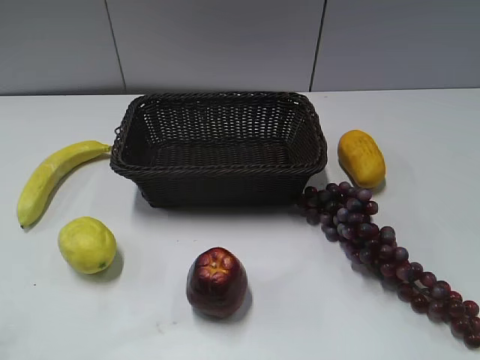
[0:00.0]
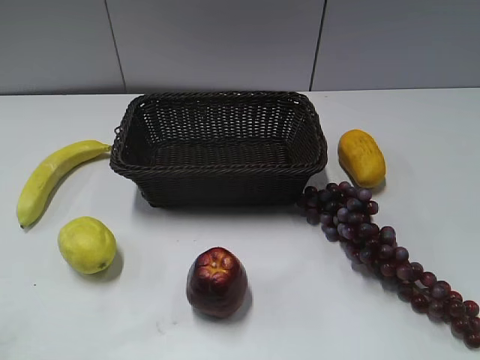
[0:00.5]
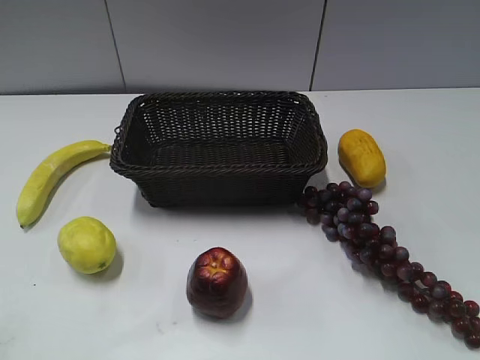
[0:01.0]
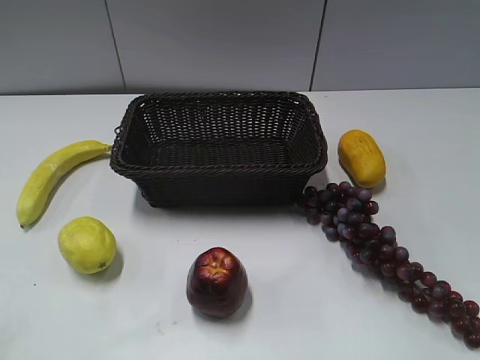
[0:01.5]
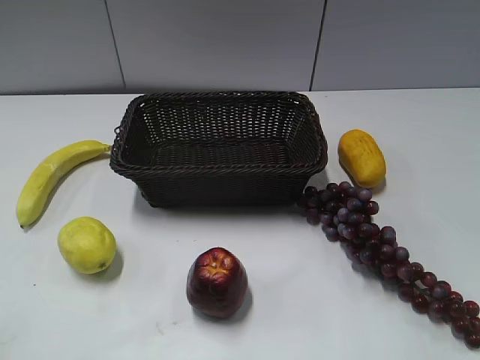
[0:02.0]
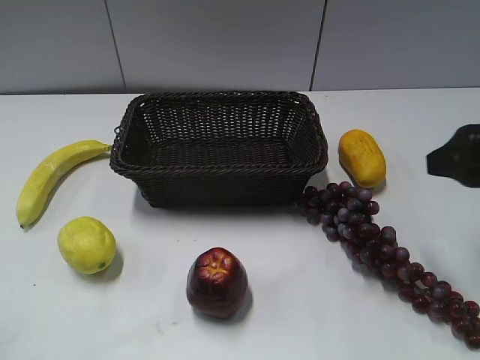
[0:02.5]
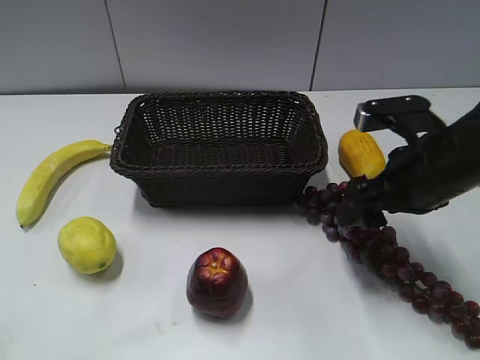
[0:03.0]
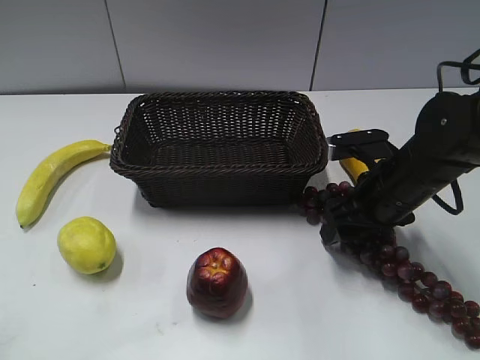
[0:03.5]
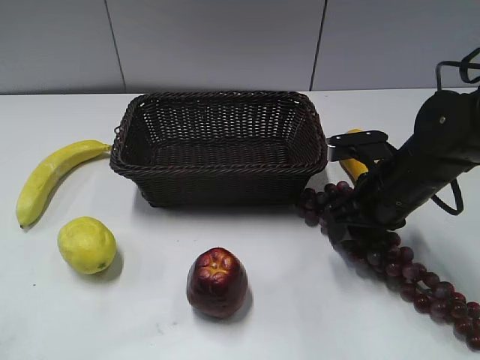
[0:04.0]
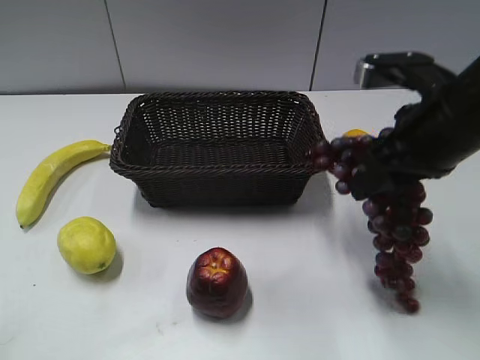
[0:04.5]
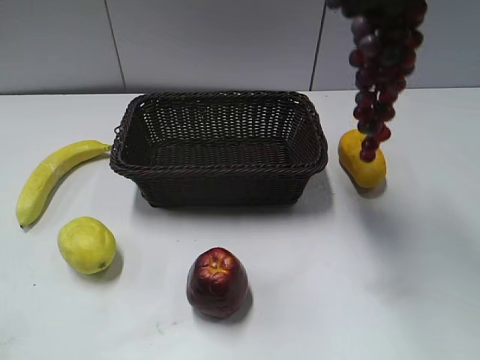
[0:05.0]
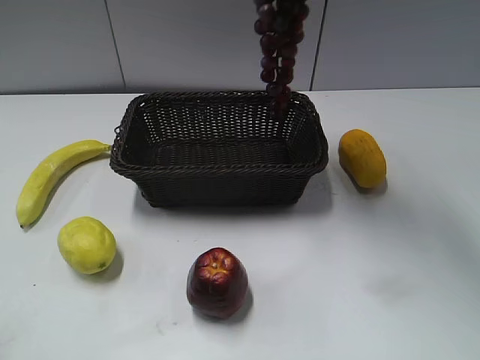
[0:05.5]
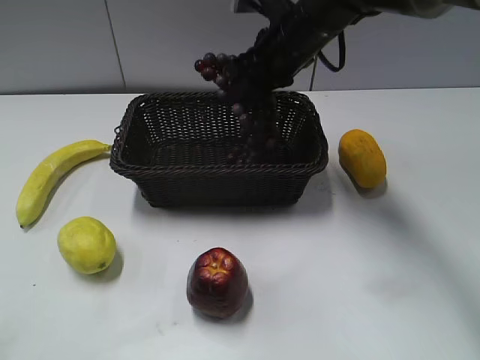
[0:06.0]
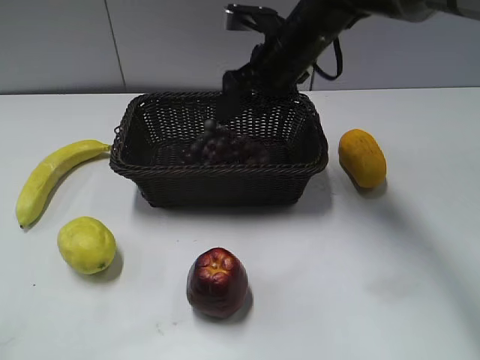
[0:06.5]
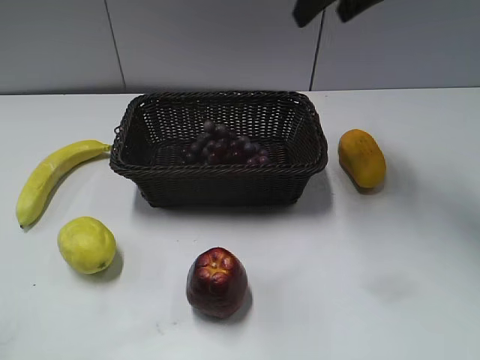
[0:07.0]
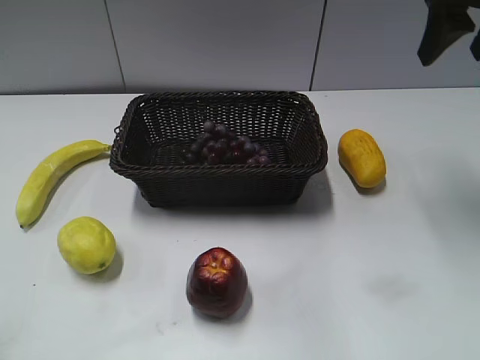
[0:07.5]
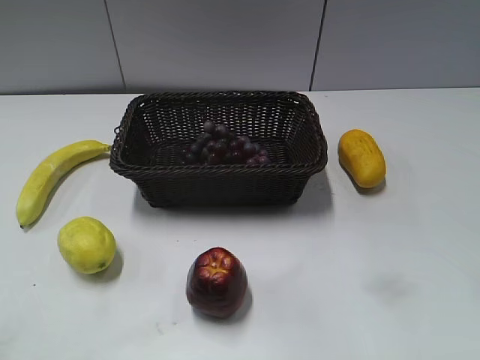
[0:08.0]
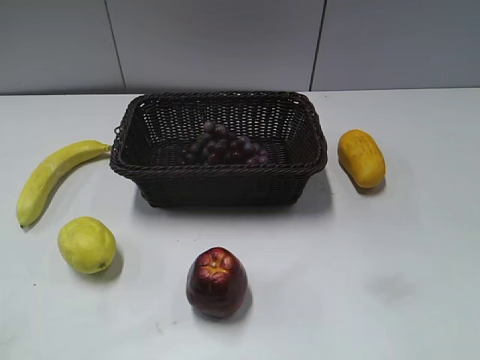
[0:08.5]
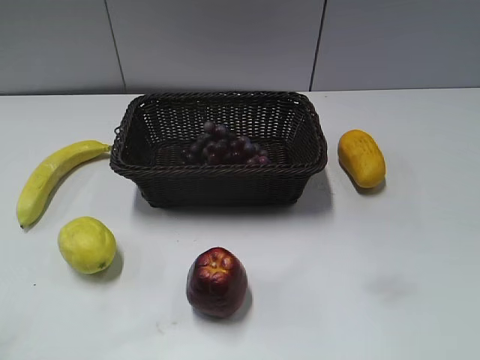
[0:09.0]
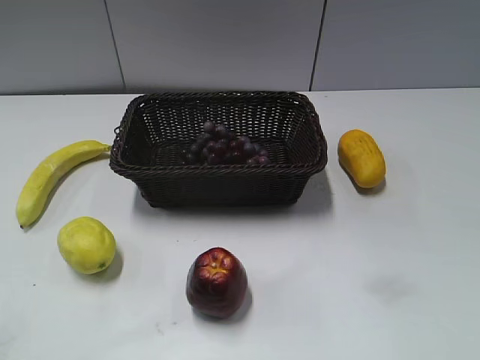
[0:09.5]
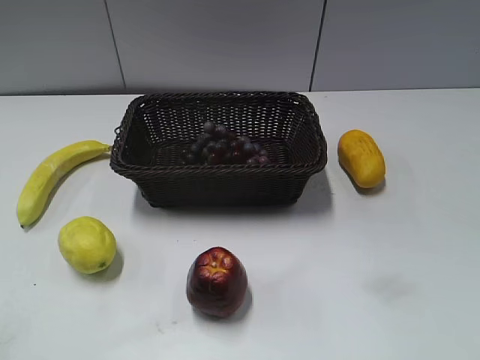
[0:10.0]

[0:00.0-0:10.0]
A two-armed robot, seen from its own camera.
Step, 0:02.5 to 0:03.5: Grasp the grape with right gripper.
Step, 0:04.0 to 0:06.0: Place the grape in the basket with right gripper.
0:02.0 to 0:04.0: The right gripper is displaced downward, forward and to the left by about 30 cm, and closes up.
0:04.0 to 0:06.0: The right gripper moves forward, to the left and upward, about 20 cm.
0:06.0 to 0:08.0: The right gripper is displaced backward, to the right and upward by approximately 35 cm, and opens up.

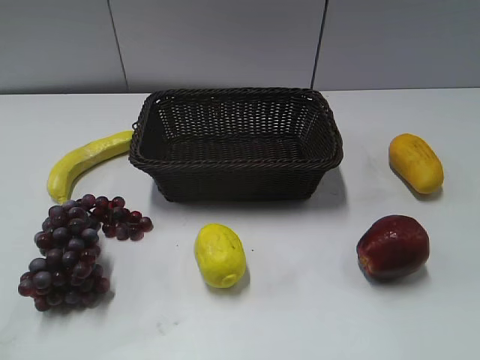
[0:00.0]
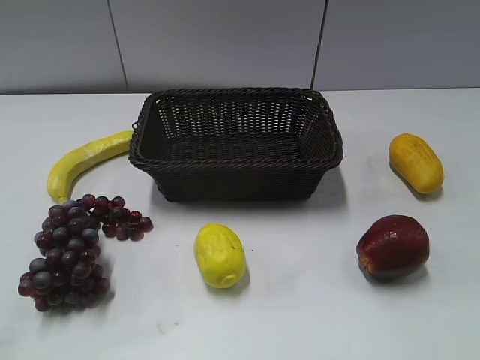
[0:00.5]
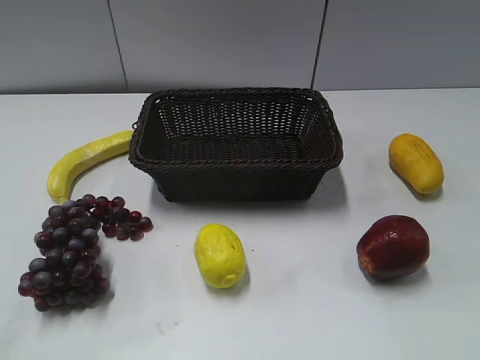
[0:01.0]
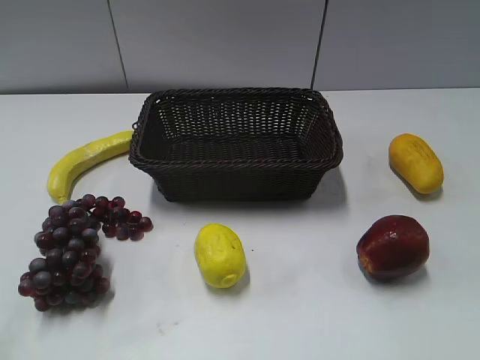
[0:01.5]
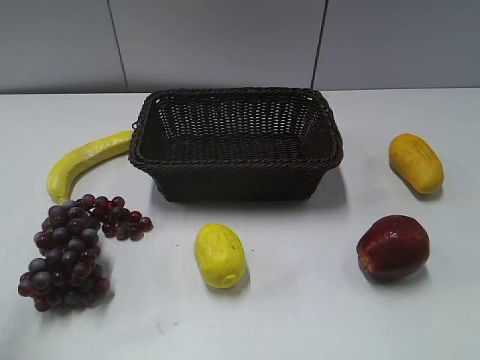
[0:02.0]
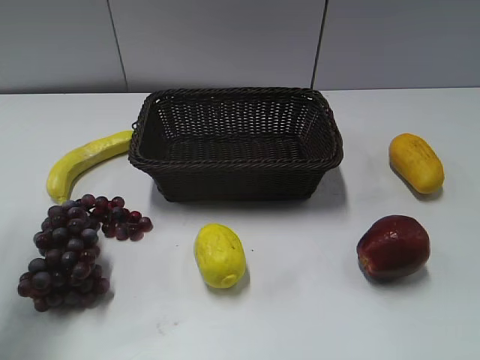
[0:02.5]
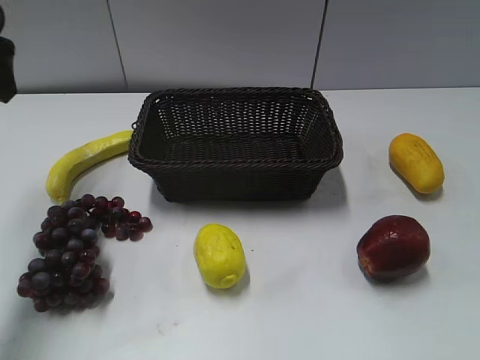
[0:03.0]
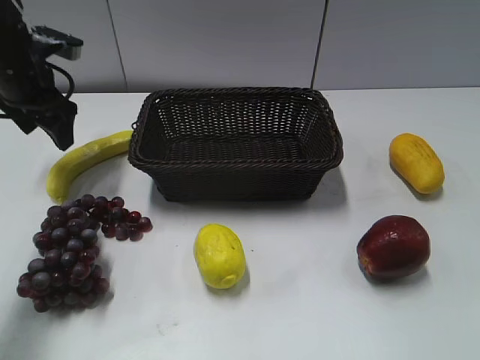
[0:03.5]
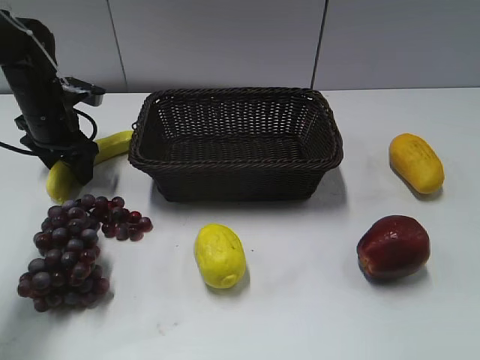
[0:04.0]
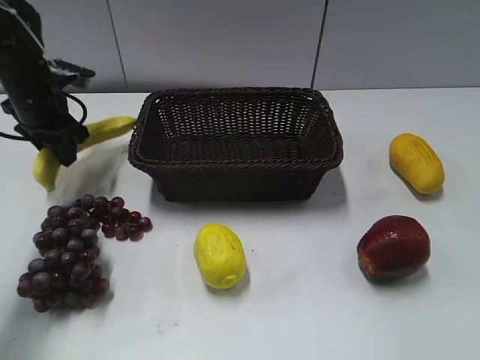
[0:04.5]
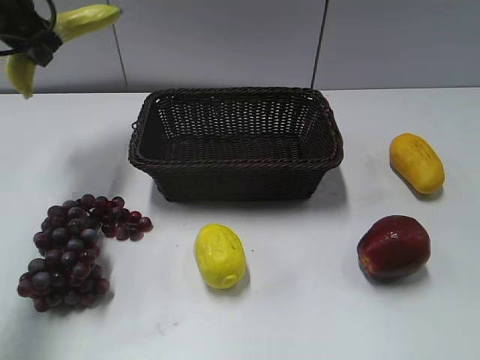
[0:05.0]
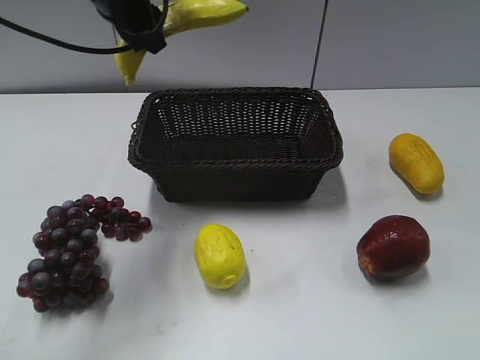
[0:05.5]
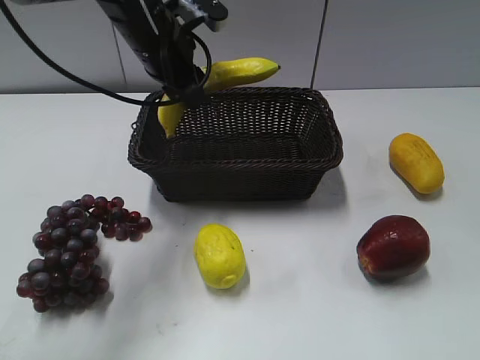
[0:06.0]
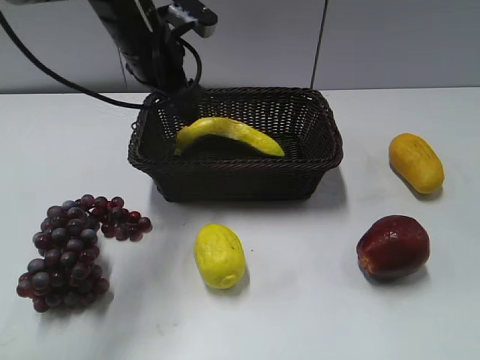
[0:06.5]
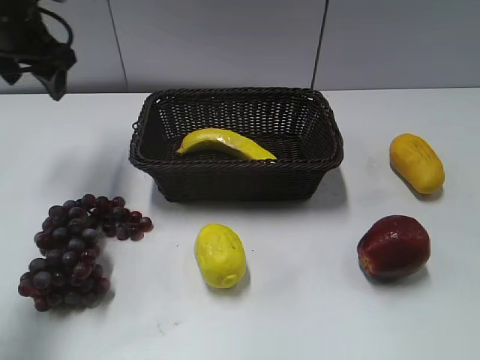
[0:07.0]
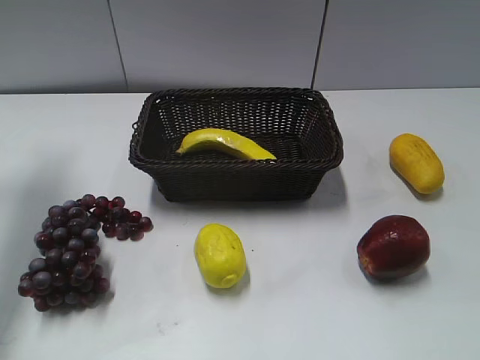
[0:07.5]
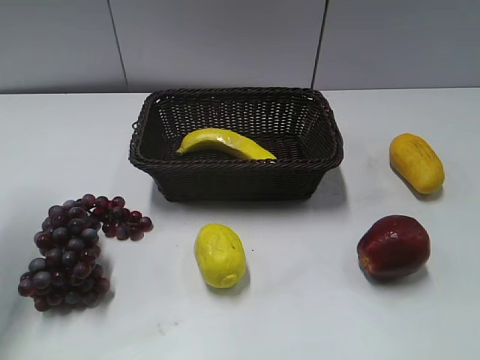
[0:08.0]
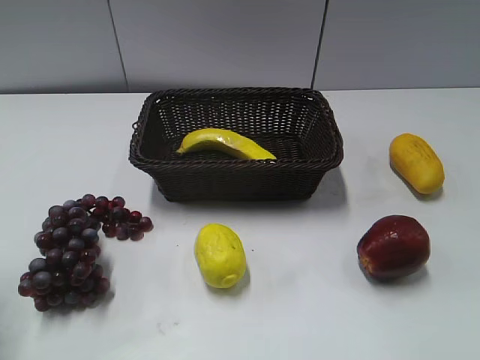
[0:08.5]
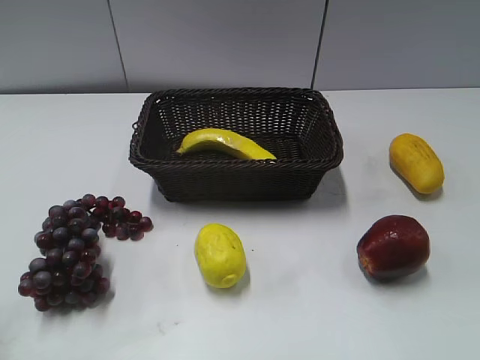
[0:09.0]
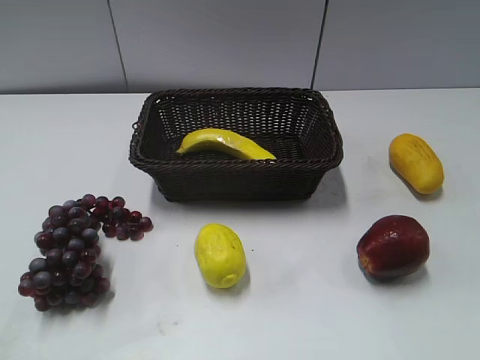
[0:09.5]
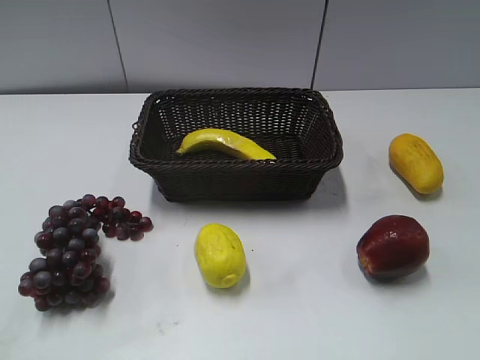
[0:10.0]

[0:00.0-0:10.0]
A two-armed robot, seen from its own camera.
Step, 0:03.0 to 0:04.0: Grasp the banana with left gripper.
Step, 0:05.0 to 0:06.5: Place the banana in the basket with left gripper.
0:02.0 to 0:04.0: The left gripper shifts some 40 cm forward and downward.
0:04.0 to 0:06.0: The left gripper moves to the right and upward, roughly 20 cm, and closes its fingers.
0:06.0 to 0:08.0: The left gripper is displaced to the left and backward by some 25 cm, and opens its fingers.
0:08.0 to 0:10.0: The left gripper moves backward, some 30 cm.
